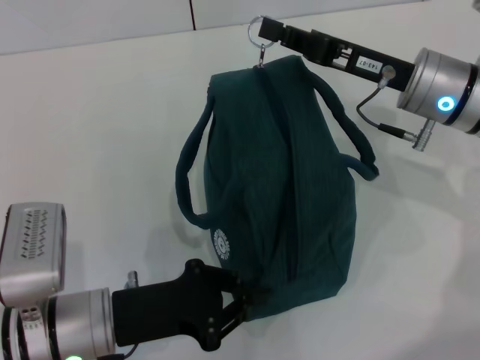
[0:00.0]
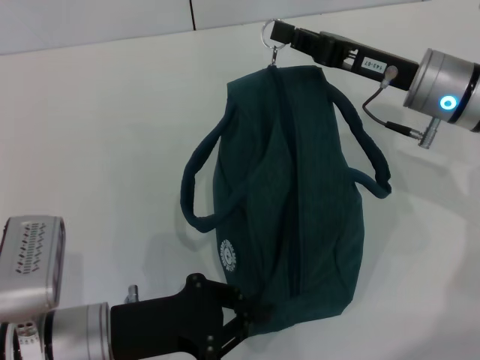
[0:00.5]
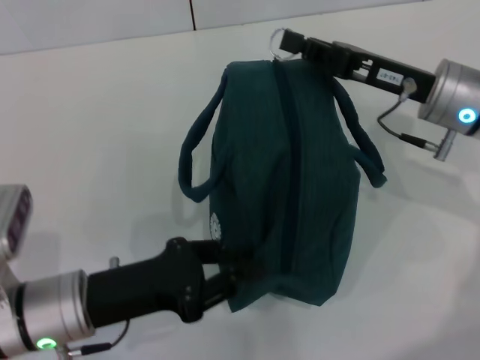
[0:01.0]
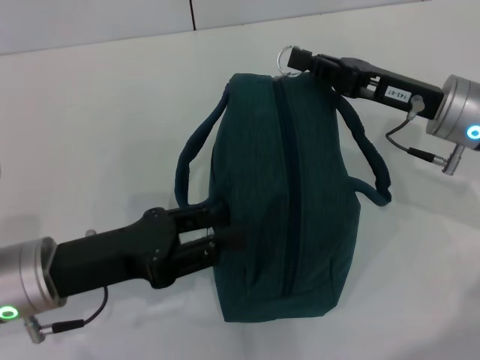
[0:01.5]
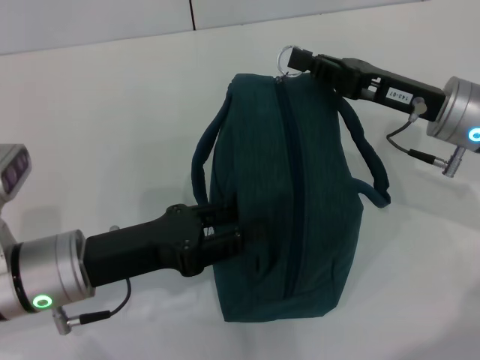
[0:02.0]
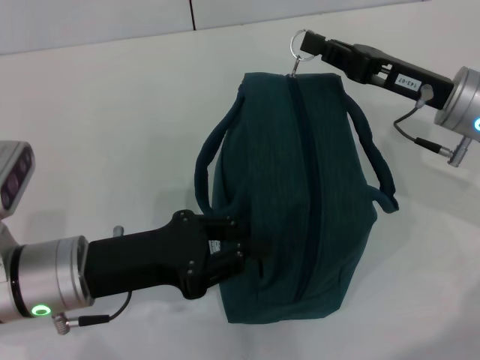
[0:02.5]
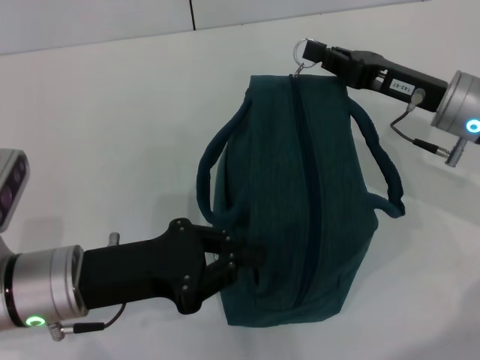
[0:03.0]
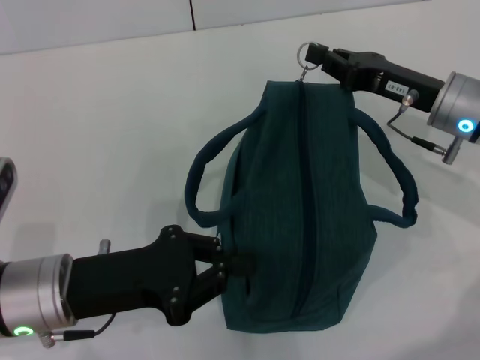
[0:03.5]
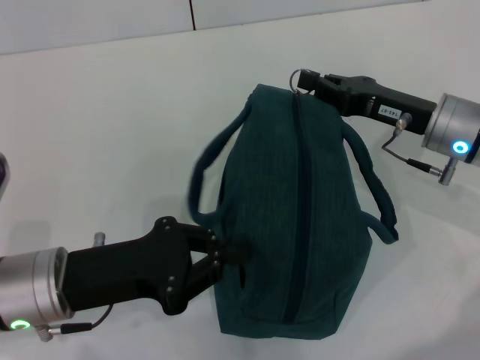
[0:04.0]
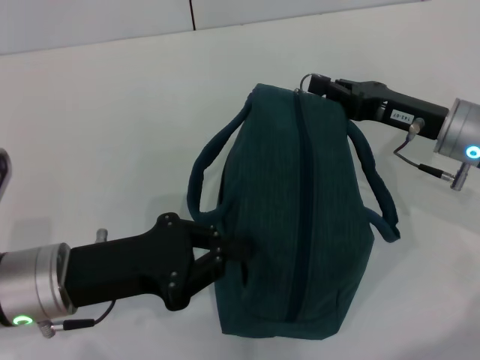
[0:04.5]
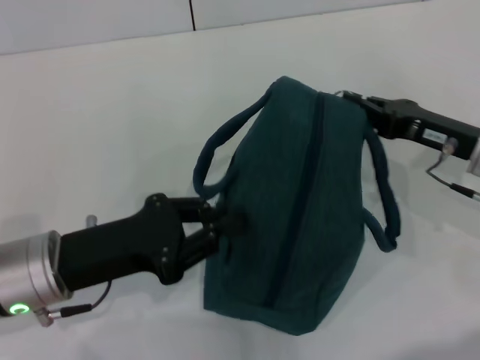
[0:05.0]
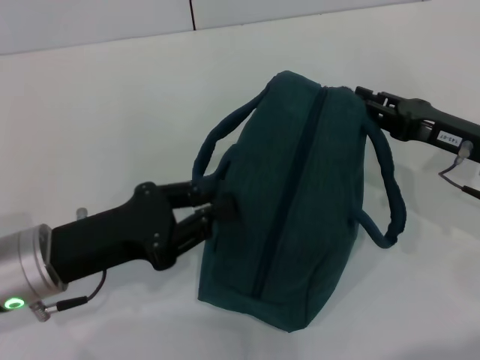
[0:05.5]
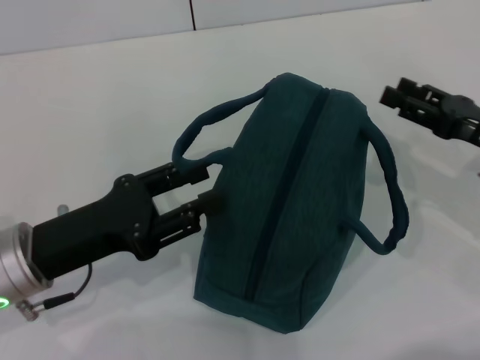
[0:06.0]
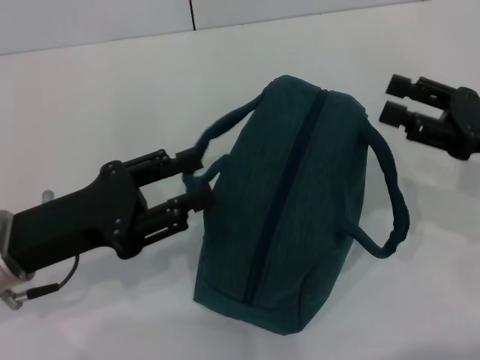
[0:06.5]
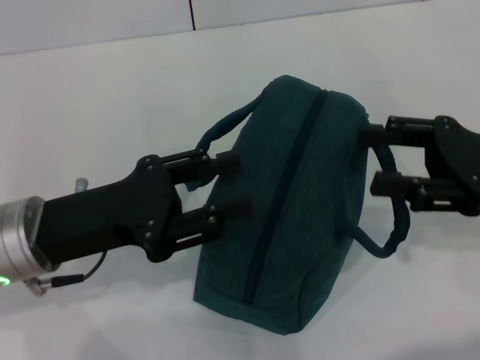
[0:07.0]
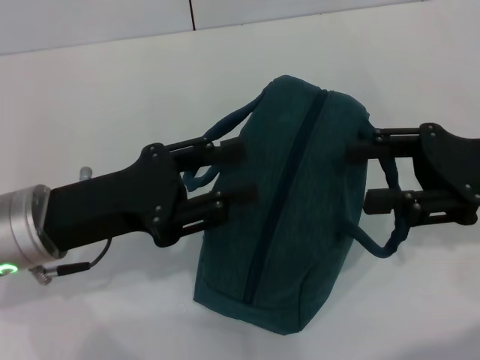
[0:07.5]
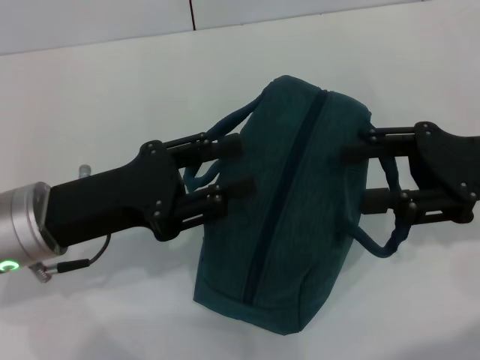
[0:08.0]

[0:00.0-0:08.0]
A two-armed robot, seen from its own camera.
Step, 0:00.0 to 0:05.5: Zip up the lunch bag with your right hand.
0:00.0 to 0:02.0: The left gripper shifts by some 5 cm, and opens up.
0:02.0 to 0:04.0: The left gripper closes.
0:04.0 to 0:06.0: The right gripper goes approximately 10 cm to the right and backward, and opens up. Meanwhile the left gripper opens.
0:06.0 to 0:08.0: The right gripper shifts roughly 5 cm upward.
